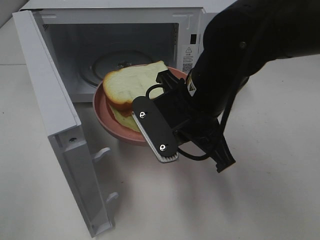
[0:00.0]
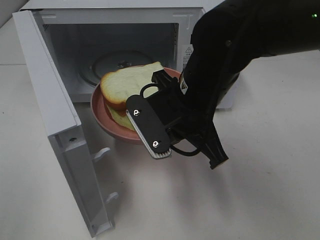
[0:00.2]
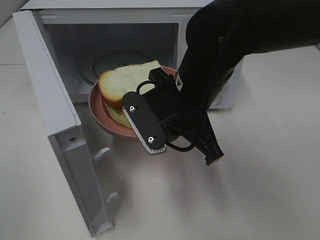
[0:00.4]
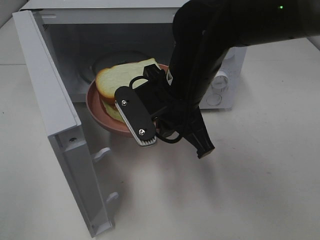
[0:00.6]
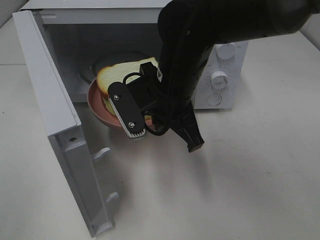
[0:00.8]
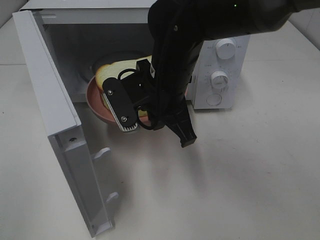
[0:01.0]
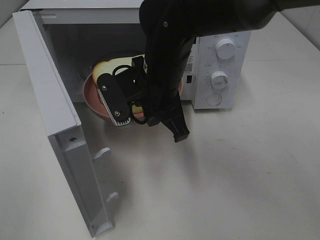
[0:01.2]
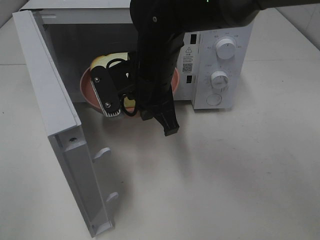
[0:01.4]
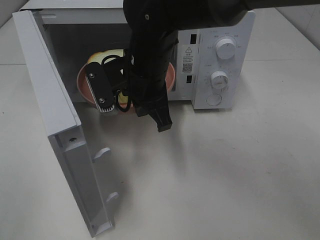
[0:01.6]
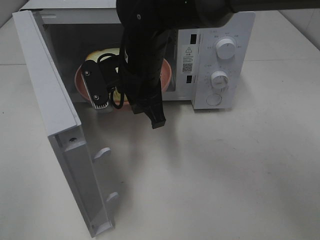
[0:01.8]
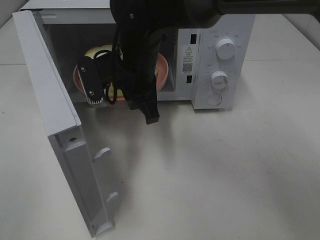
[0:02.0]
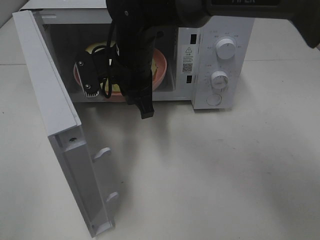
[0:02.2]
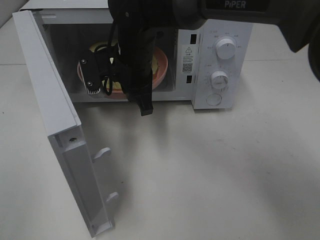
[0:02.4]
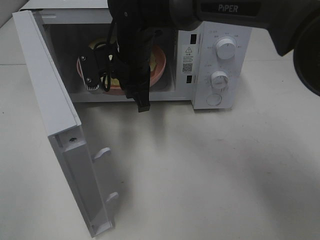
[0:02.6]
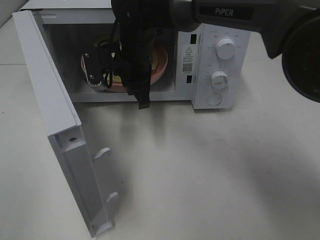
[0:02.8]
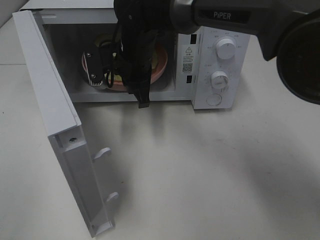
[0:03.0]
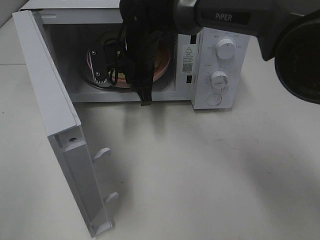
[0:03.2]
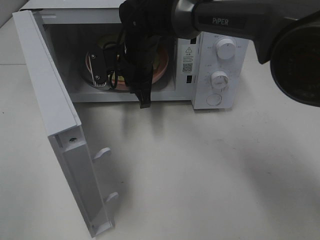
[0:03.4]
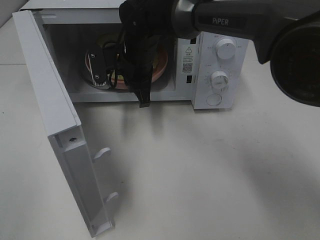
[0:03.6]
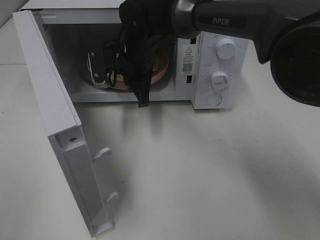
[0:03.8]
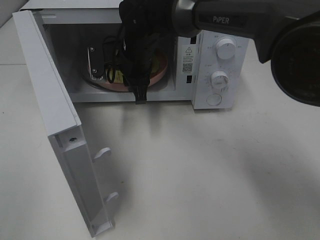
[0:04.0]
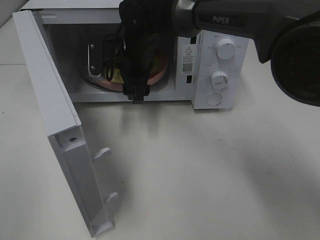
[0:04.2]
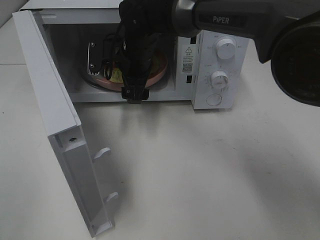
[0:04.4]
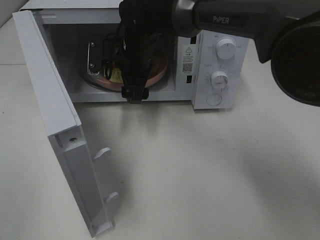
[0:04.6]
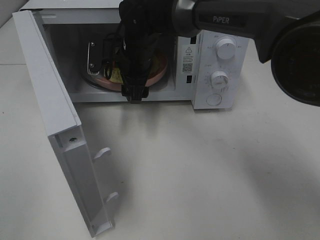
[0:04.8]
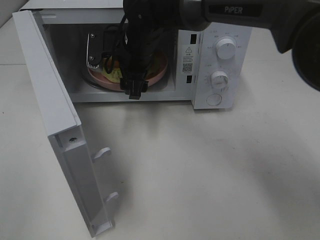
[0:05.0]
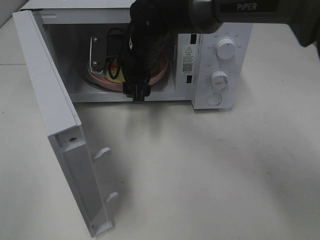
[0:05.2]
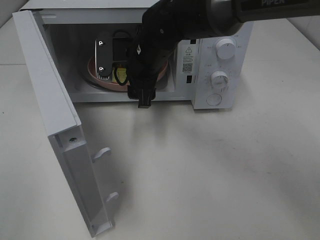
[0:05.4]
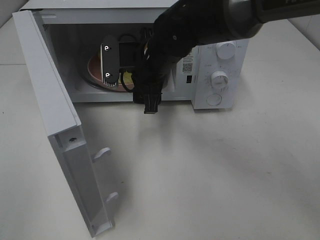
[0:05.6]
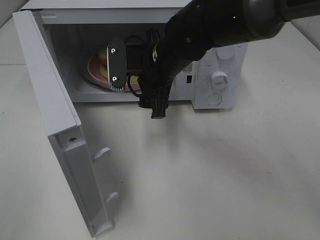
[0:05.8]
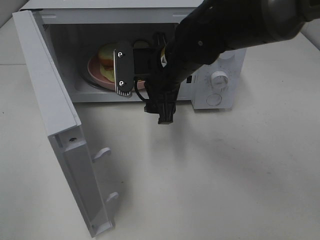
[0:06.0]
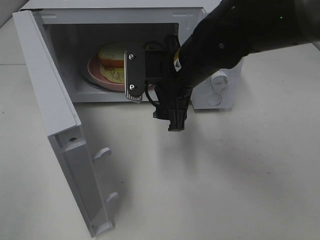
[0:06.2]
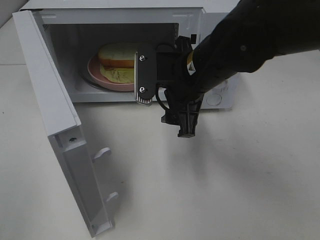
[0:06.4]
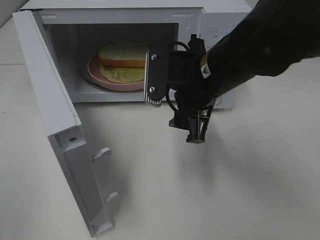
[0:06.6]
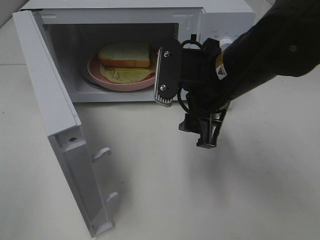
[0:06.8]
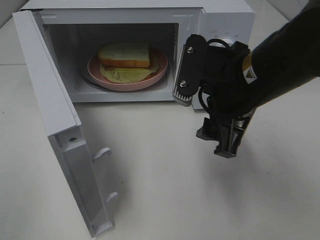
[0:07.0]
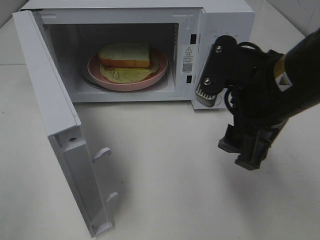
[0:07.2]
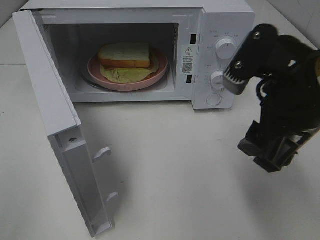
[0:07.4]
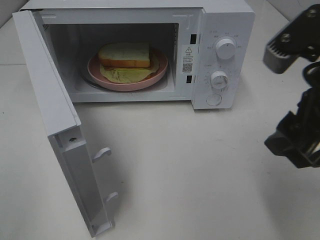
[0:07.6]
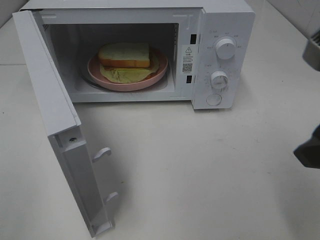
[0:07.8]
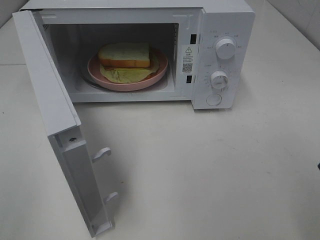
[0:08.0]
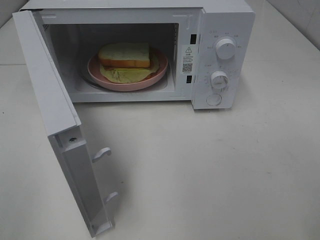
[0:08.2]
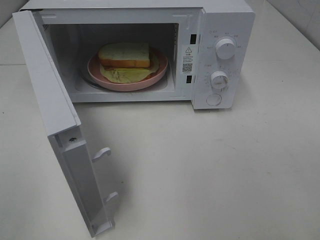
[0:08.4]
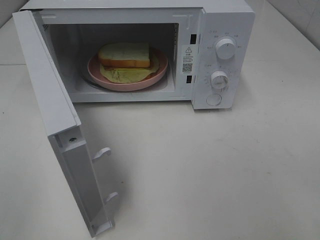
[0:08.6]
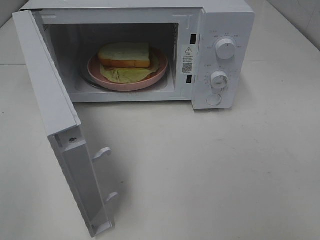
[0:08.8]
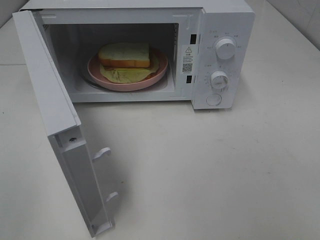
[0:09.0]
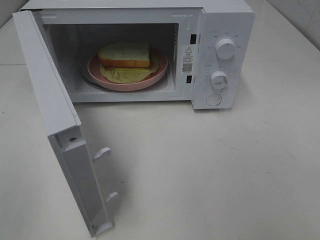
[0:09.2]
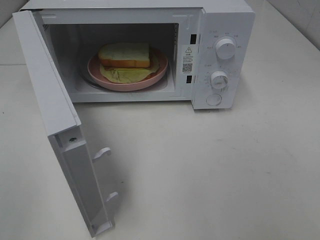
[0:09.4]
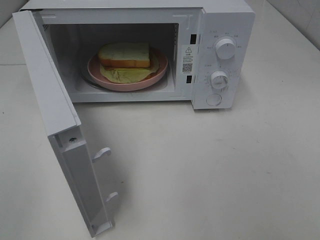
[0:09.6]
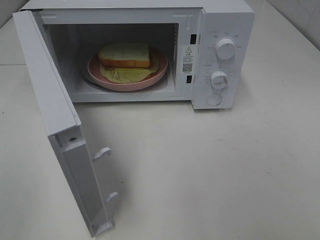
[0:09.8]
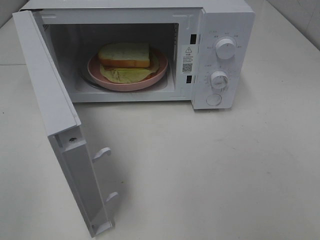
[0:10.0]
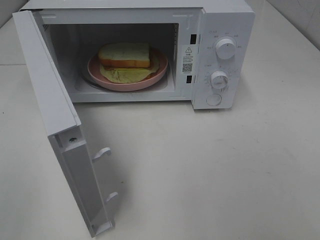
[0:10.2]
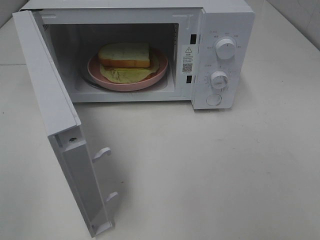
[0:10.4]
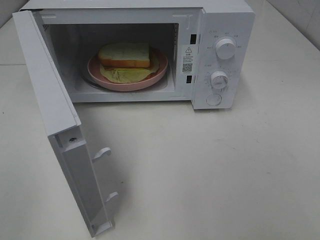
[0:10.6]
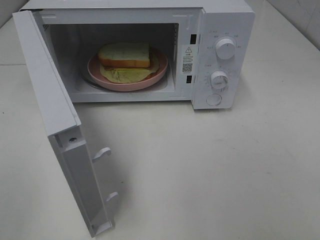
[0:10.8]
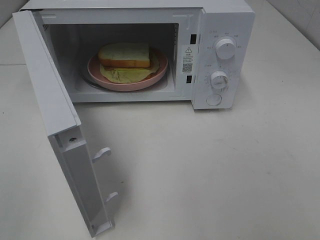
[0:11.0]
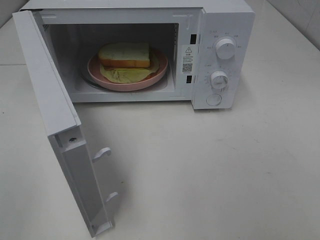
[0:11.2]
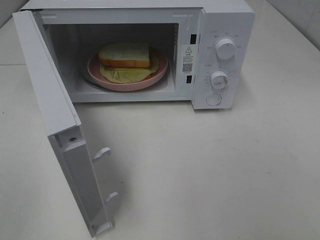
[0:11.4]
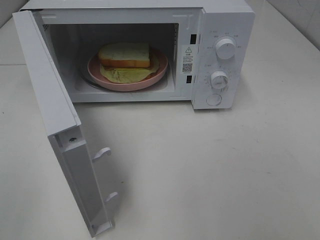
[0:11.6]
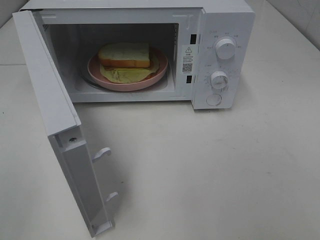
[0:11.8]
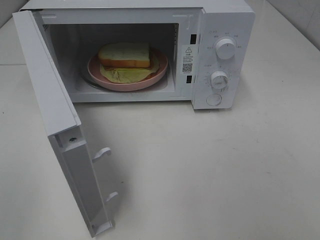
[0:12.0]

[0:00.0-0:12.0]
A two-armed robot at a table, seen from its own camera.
Task of the whole recording: Heat Sandwich.
Step, 0:00.0 to 0:05.0: Right hand: place the plate in the microwave.
0:00.0 to 0:01.6: The right gripper is displaced forward and to the left by some 10 cm.
0:01.6 to 0:03.0: The right gripper is displaced forward by approximately 10 cm.
0:03.0 to 0:04.4: The right gripper opens its fingers.
0:04.4 to 0:06.0: The right gripper moves backward and to the right, some 10 cm.
0:06.0 to 0:07.6: The right gripper moves backward, to the right and upward, approximately 25 cm.
0:07.6 to 0:09.0: The right gripper heads backward and to the right, covering approximately 15 cm.
0:10.4 to 0:12.0: Neither gripper changes place.

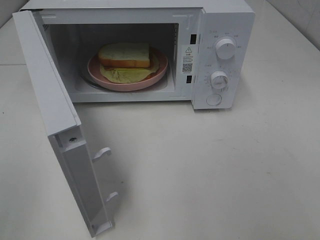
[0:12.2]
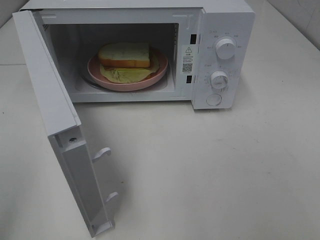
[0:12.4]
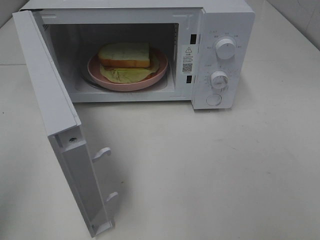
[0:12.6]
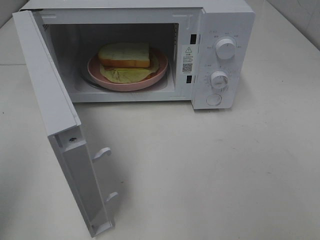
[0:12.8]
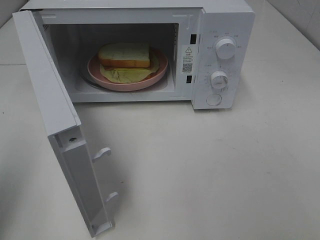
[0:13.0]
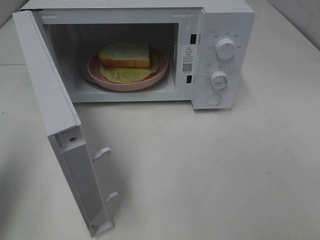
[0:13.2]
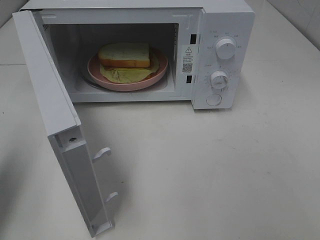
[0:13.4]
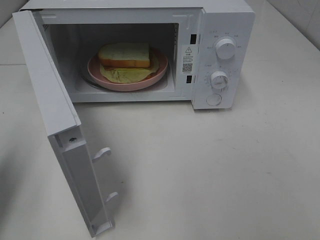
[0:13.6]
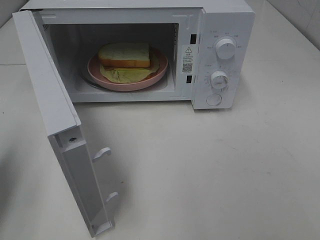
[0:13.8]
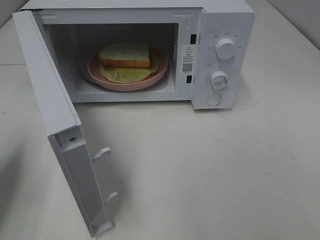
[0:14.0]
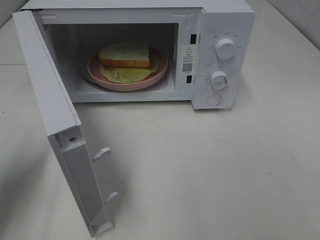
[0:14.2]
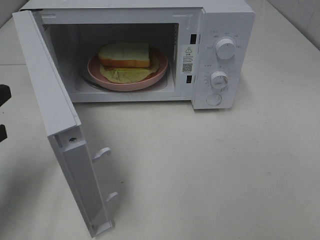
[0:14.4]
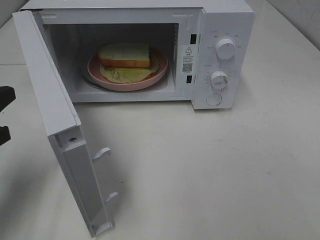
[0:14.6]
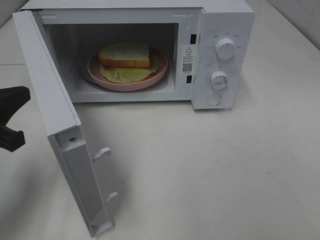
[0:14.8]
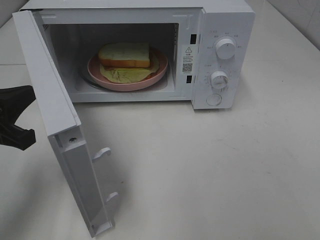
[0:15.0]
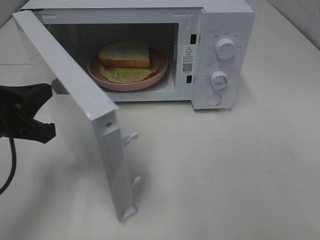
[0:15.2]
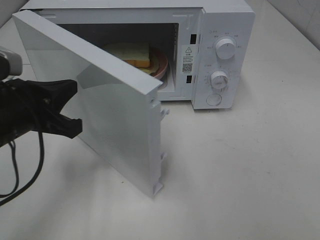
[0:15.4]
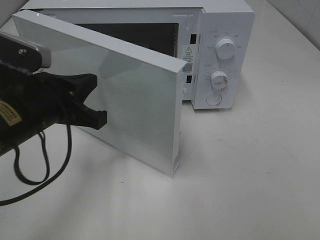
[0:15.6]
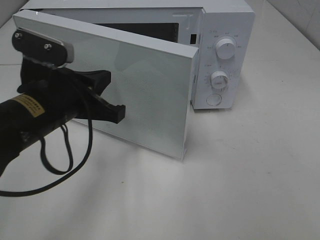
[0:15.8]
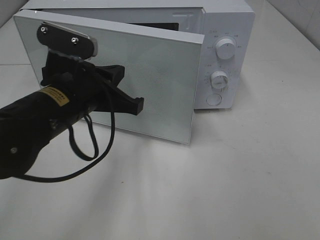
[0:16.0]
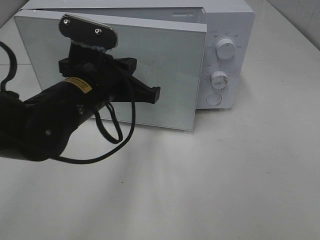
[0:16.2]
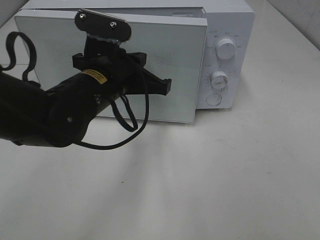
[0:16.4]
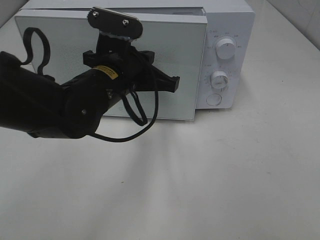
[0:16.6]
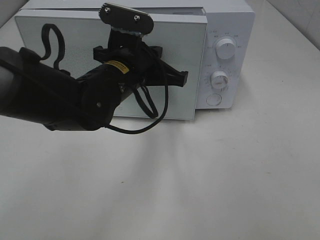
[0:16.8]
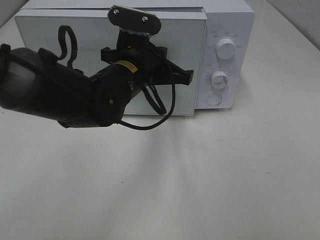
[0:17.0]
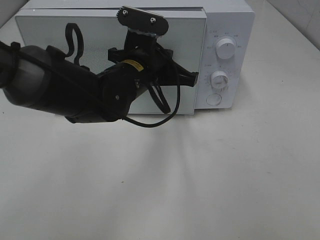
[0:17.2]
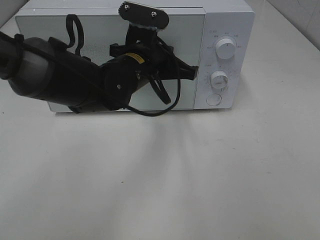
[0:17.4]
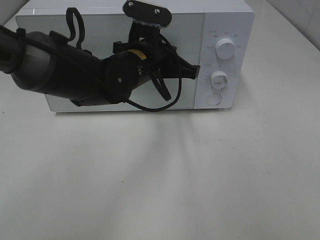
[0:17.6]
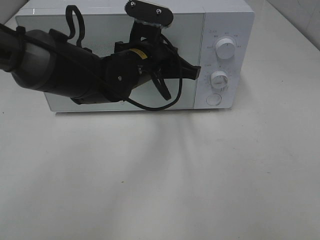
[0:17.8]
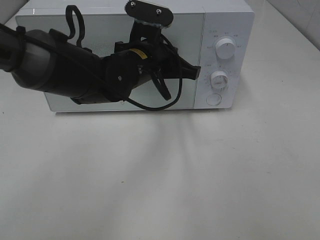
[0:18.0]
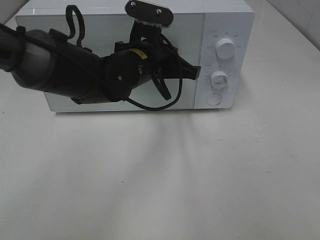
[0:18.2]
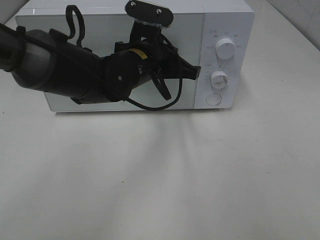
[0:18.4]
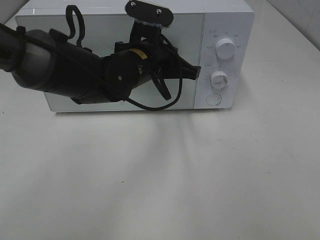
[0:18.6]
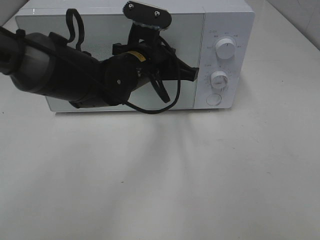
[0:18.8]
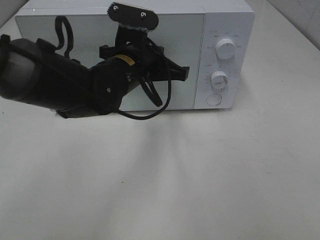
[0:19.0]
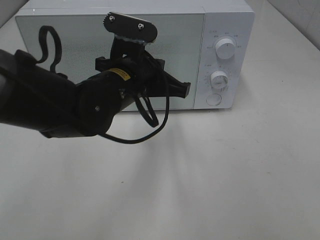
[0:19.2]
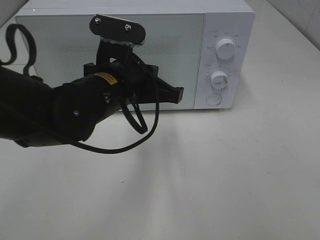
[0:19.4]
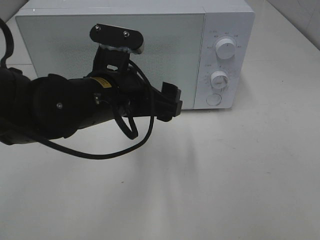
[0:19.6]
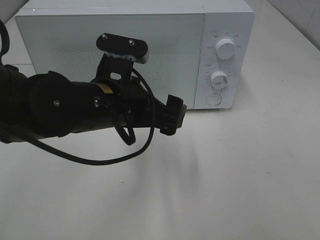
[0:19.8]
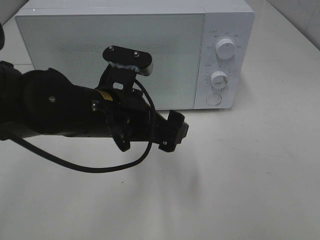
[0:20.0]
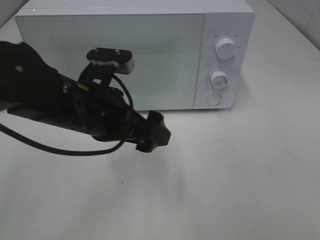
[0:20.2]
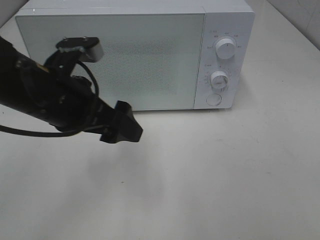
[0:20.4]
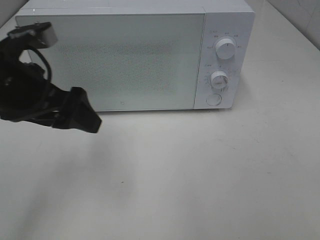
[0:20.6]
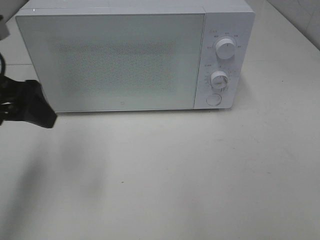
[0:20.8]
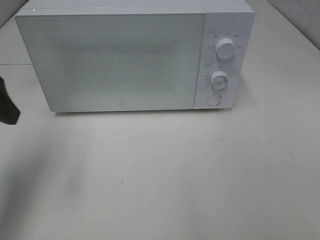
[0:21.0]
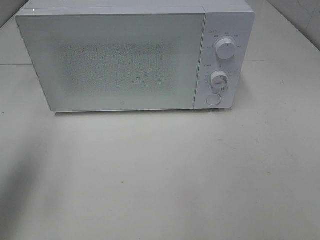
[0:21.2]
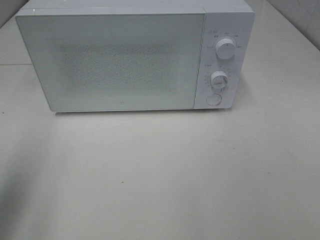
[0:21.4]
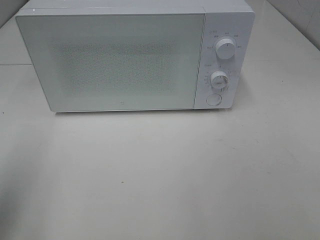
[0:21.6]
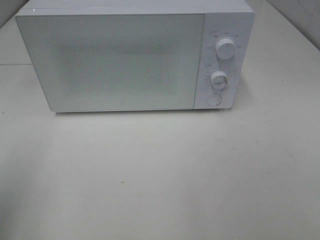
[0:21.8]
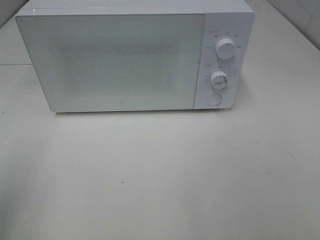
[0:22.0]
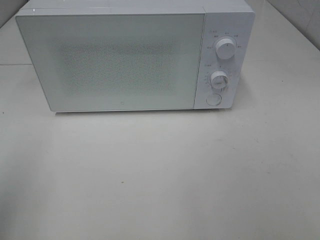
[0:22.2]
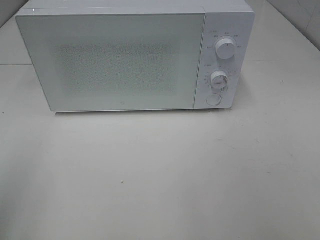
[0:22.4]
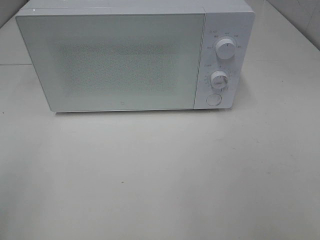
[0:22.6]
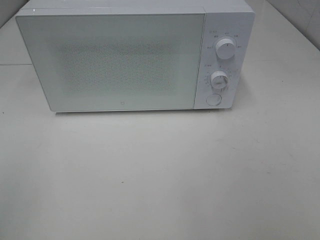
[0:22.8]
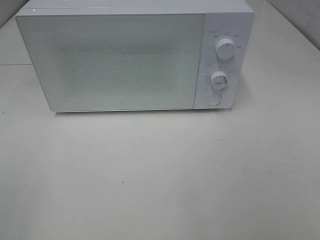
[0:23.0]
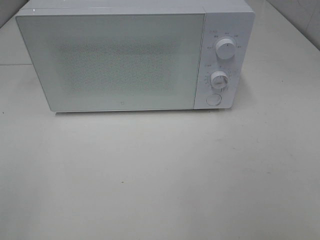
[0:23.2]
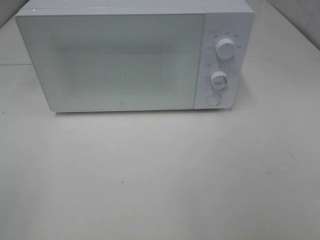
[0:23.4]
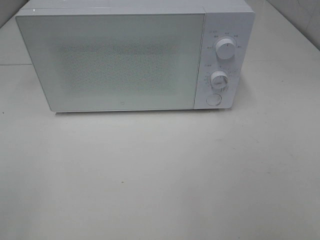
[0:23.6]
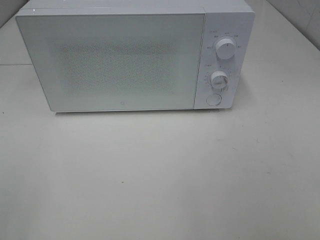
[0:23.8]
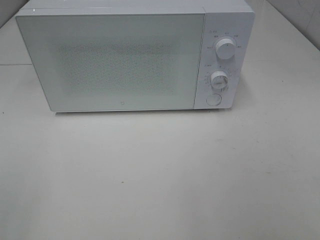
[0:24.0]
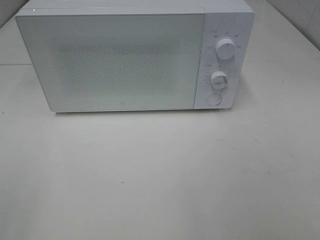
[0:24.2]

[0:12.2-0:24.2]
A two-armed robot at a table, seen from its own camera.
Task of the whole recording: Heat Sandwich.
Step, 0:12.2 to 0:18.8: Left hand: close the microwave door.
0:12.2 to 0:13.8: The left gripper moves forward and downward, about 20 cm, and closes up.
0:13.8 to 0:15.2: The left gripper is displaced to the right by roughly 10 cm.
0:15.2 to 0:16.6: The left gripper is displaced to the right and forward by some 20 cm.
0:16.6 to 0:18.2: The left gripper moves forward, about 5 cm.
0:18.2 to 0:19.8: The left gripper moves backward, roughly 10 cm, and opens its fingers.
0:19.8 to 0:21.2: The left gripper heads to the left, covering about 25 cm.
0:21.2 to 0:22.6: The left gripper is displaced backward by approximately 15 cm.
